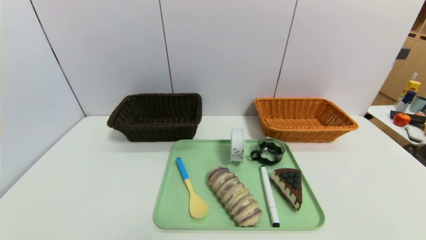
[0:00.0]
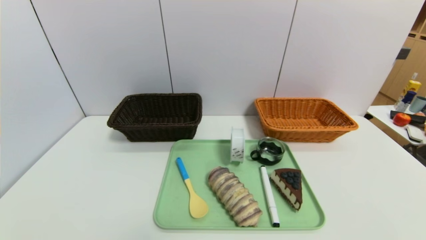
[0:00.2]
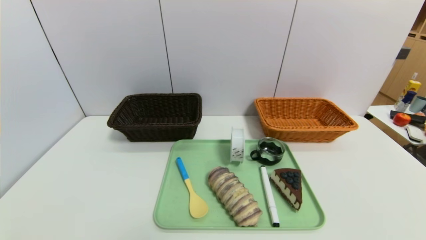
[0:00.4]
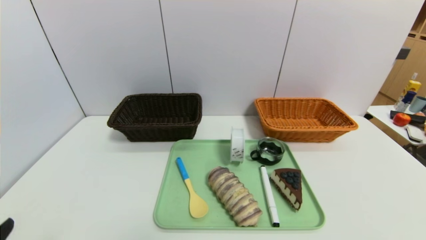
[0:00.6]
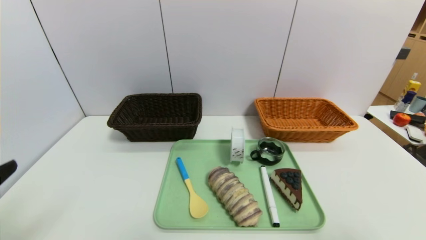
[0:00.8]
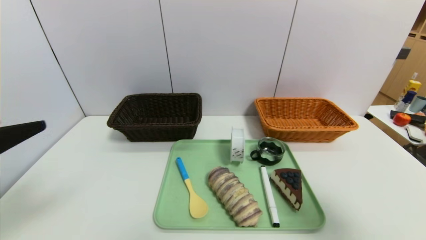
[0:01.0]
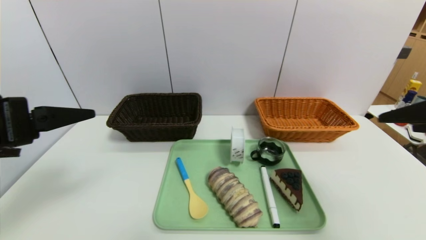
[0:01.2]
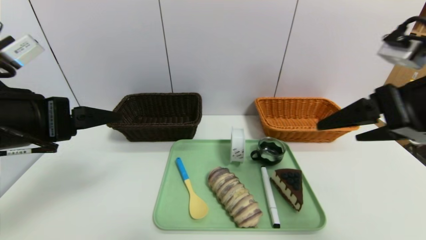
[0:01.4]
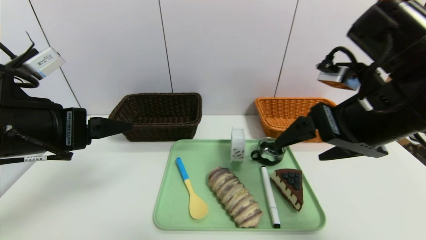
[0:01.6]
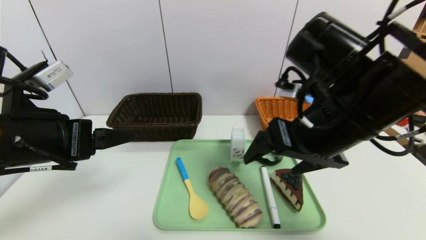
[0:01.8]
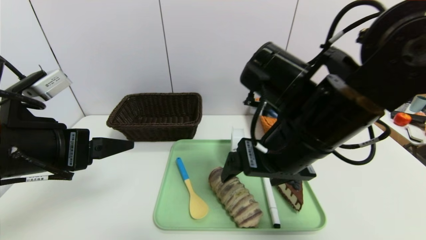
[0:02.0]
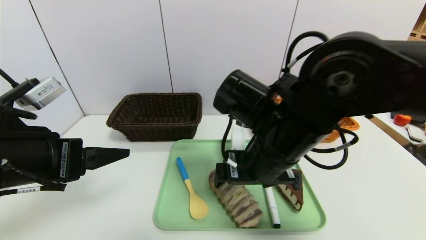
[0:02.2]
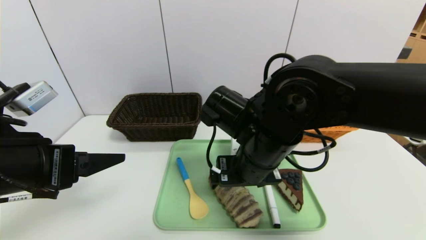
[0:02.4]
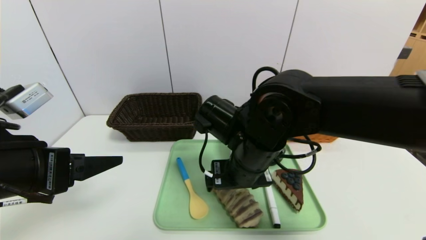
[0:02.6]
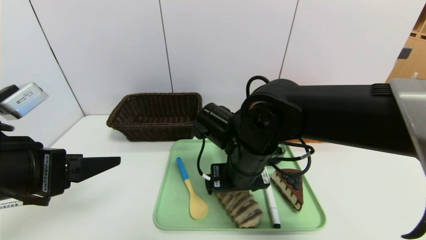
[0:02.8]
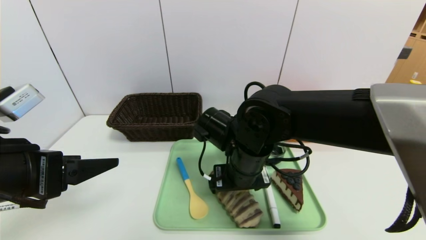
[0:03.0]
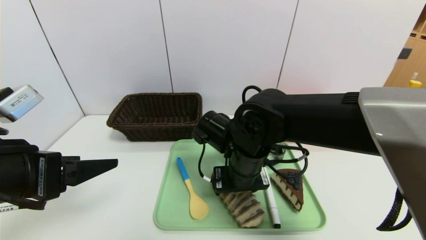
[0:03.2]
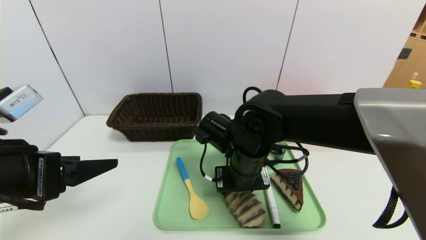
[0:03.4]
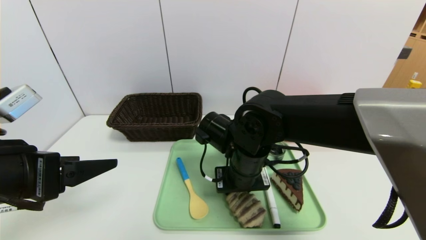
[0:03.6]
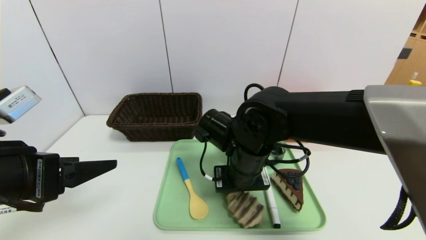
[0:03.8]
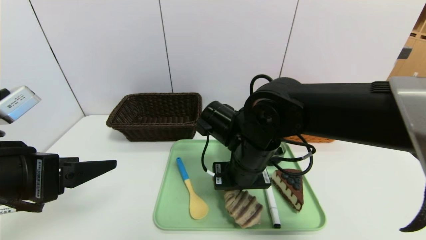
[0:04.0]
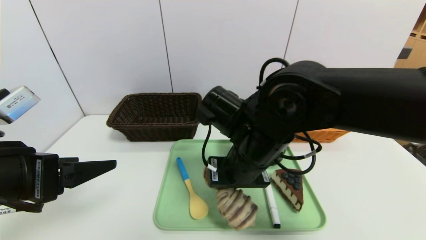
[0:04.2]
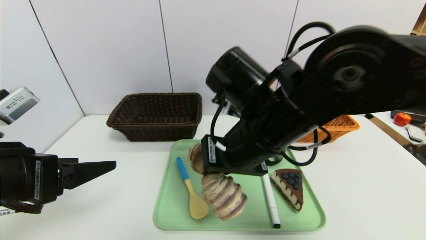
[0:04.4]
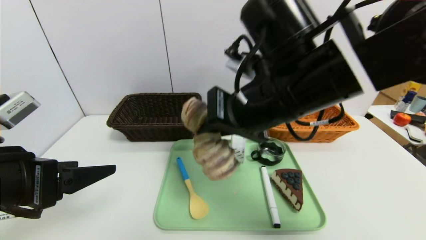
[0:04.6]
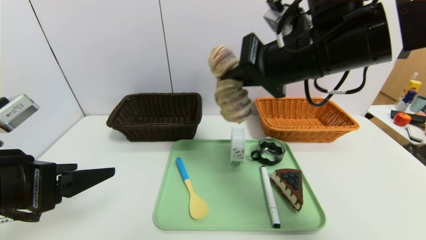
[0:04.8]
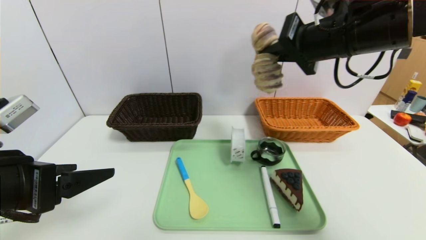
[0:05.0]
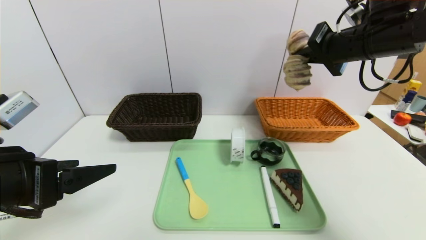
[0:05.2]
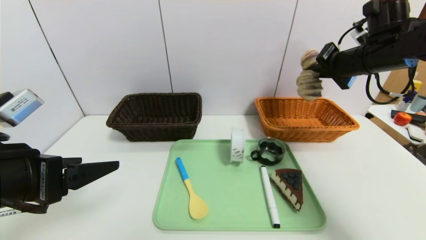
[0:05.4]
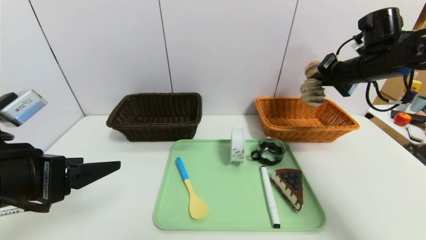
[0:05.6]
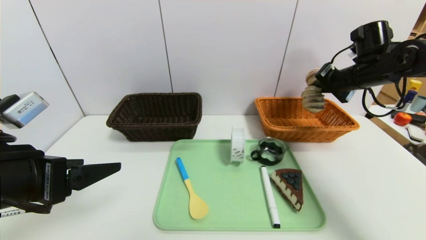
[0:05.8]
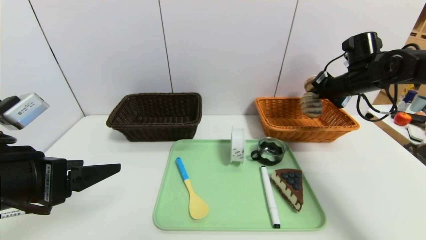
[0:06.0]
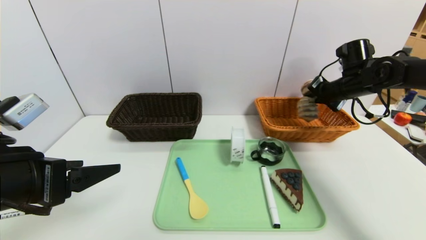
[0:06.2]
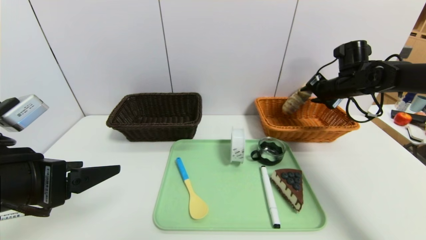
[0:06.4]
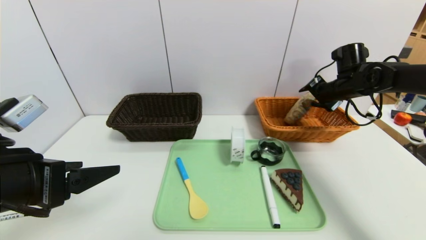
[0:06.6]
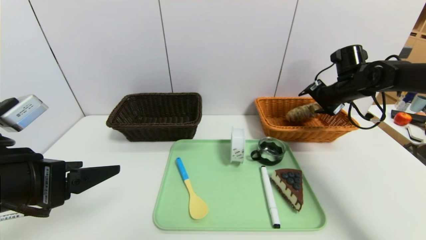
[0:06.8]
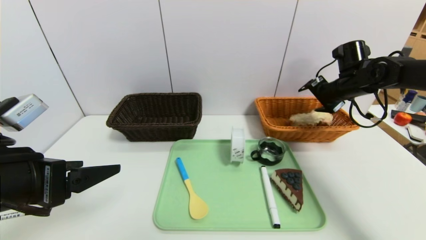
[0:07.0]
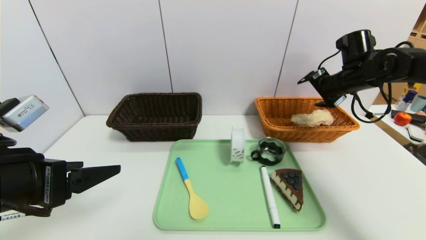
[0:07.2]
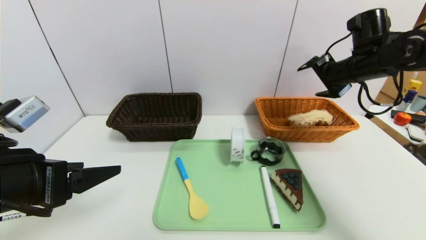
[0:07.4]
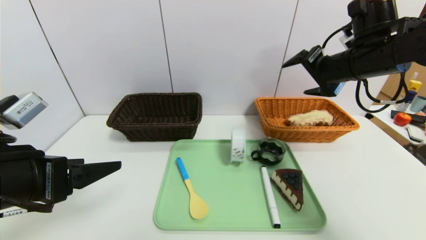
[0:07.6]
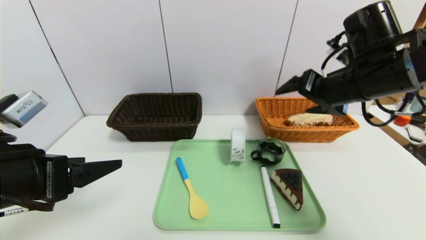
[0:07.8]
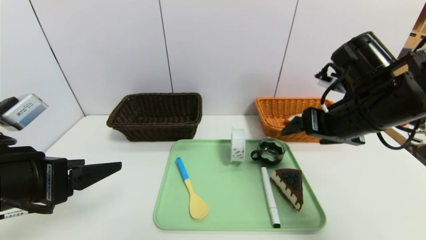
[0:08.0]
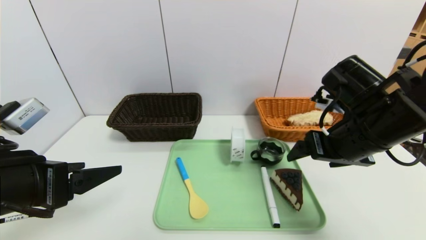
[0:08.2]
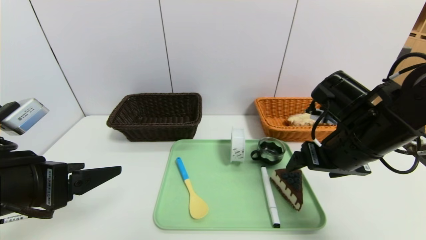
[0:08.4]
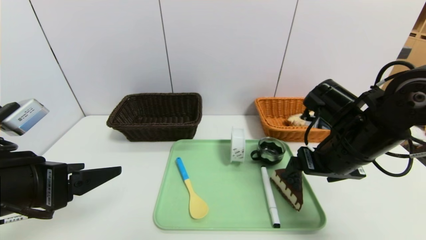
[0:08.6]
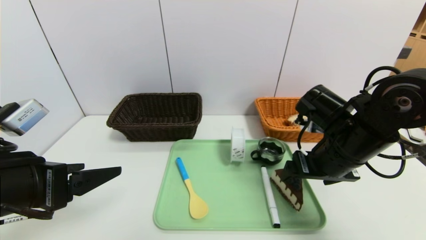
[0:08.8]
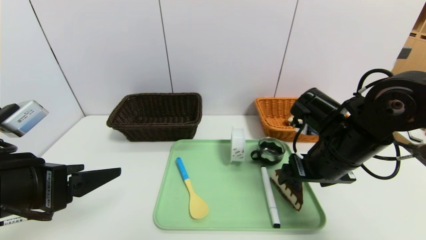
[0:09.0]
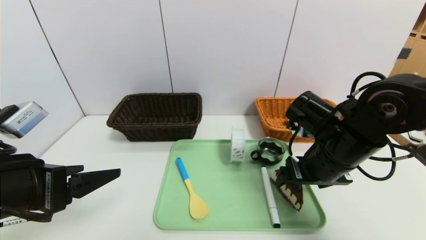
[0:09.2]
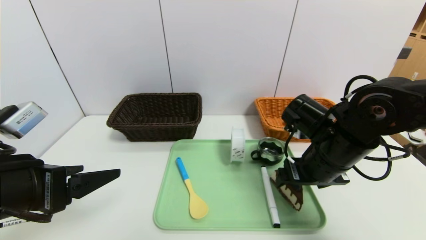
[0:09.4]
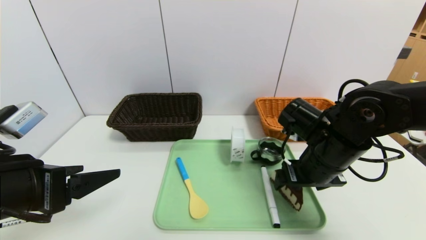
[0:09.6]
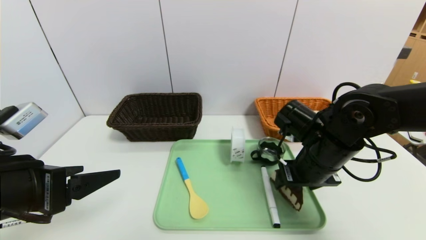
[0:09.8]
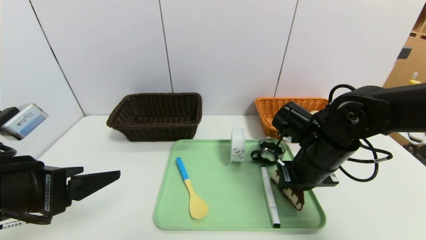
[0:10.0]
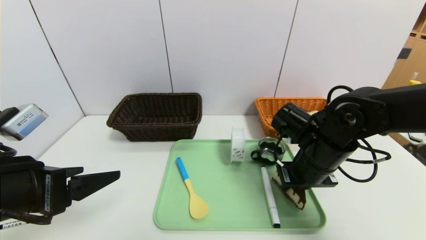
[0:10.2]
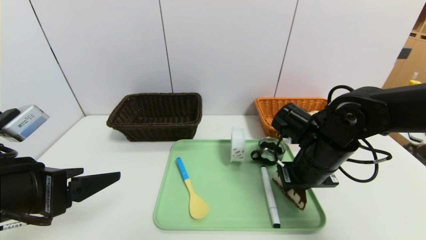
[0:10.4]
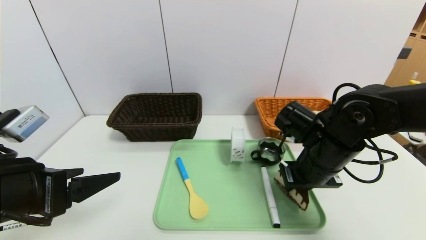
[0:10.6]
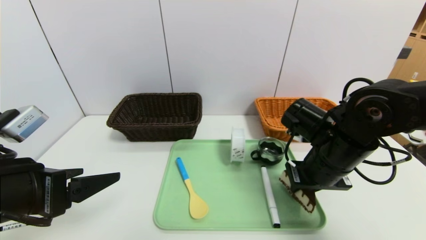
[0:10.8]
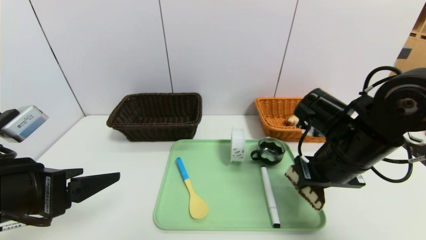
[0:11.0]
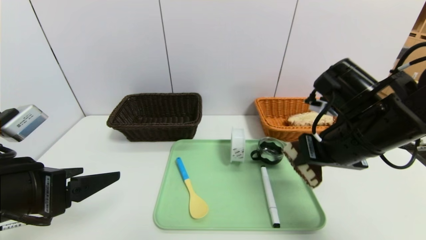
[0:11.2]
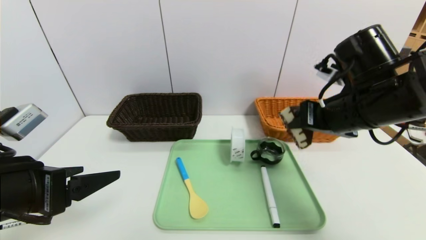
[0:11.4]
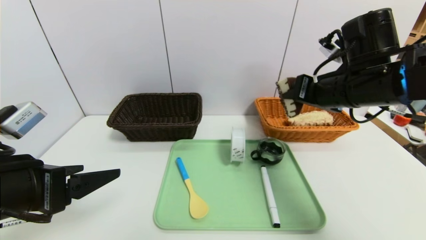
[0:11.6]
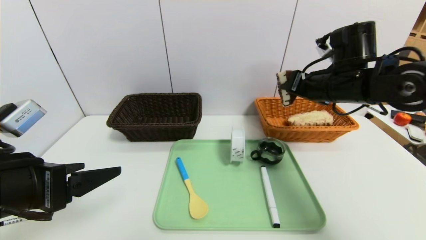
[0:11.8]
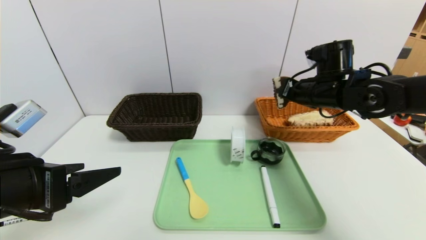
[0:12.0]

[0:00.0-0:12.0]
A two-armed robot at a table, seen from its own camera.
Task of the whole recording: place the food in the right basket with the right gripper, and place the non food items in the left basket with the left gripper.
Step, 0:00.0 to 0:06.8: Grasp the long bread and put it in the right basket.
0:00.0 to 0:01.6: The left gripper moves upward and forward, roughly 30 cm; the right gripper shifts about 35 cm upward, forward and to the left.
0:01.6 to 0:03.0: The left gripper shifts by about 5 cm. Meanwhile the right gripper shifts approximately 20 cm to the left, downward and forward.
0:03.0 to 0:04.4: The right gripper is displaced upward by approximately 10 cm, and closes.
0:04.4 to 0:06.0: The right gripper heads to the right and forward, covering roughly 35 cm.
0:06.0 to 0:07.6: The right gripper moves backward, to the left and upward, roughly 15 cm, and opens up.
0:07.6 to 0:09.0: The right gripper goes some 15 cm downward and backward.
0:09.0 to 0:10.4: The right gripper closes.
0:10.4 to 0:12.0: The right gripper heads forward and upward, covering about 15 cm.

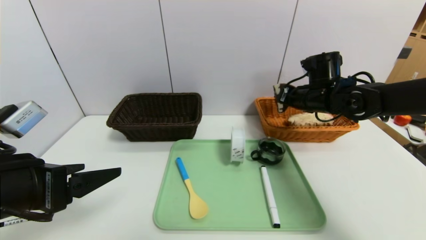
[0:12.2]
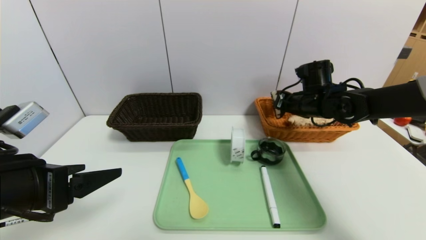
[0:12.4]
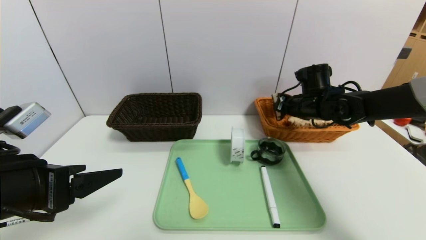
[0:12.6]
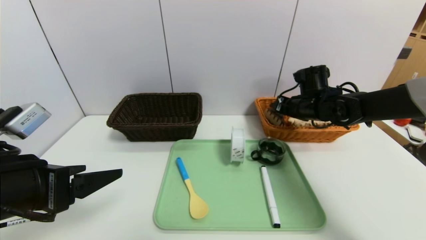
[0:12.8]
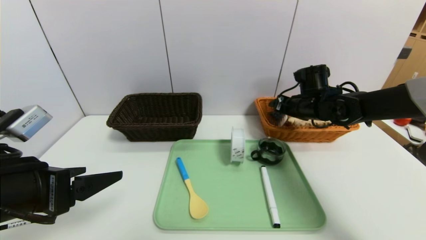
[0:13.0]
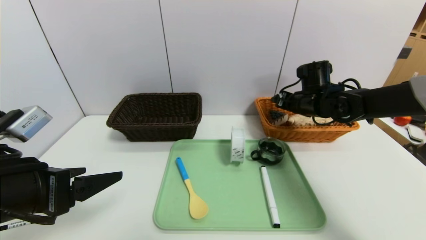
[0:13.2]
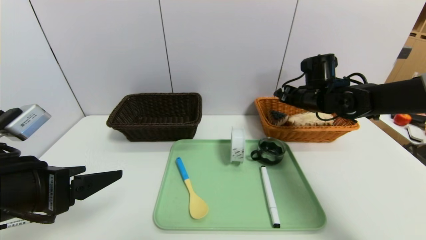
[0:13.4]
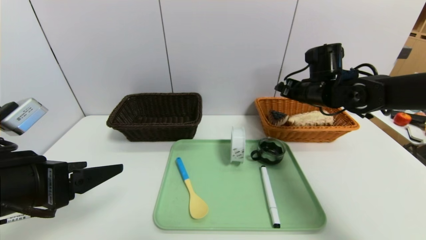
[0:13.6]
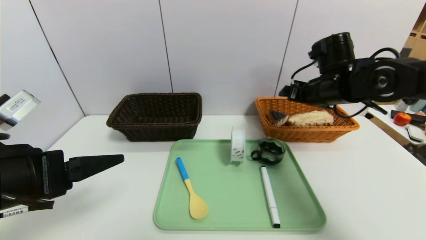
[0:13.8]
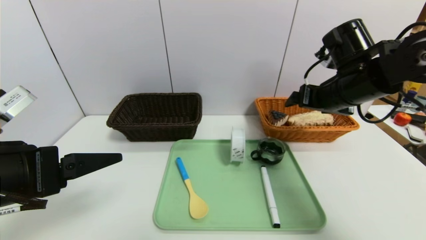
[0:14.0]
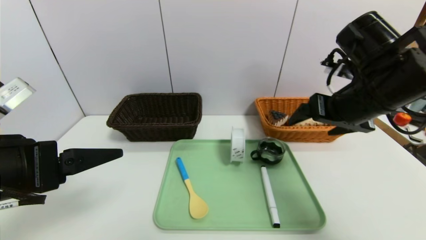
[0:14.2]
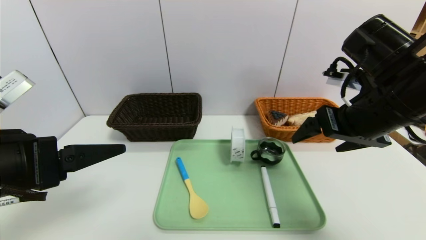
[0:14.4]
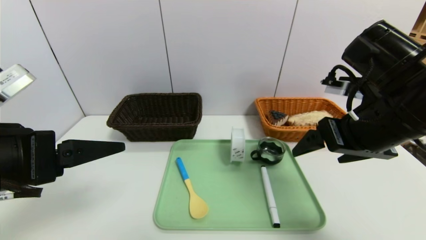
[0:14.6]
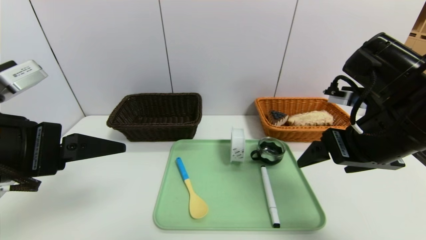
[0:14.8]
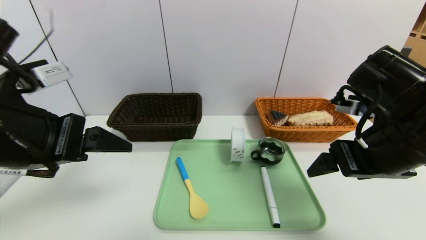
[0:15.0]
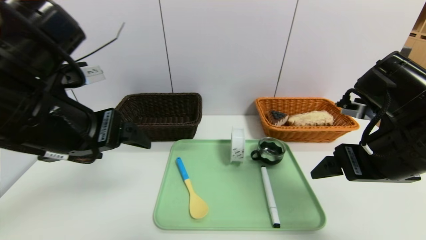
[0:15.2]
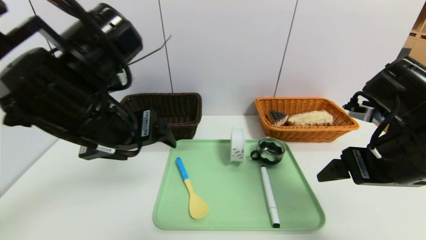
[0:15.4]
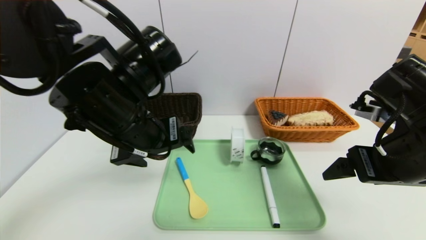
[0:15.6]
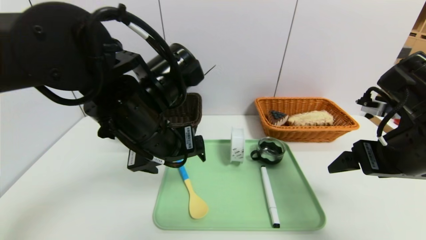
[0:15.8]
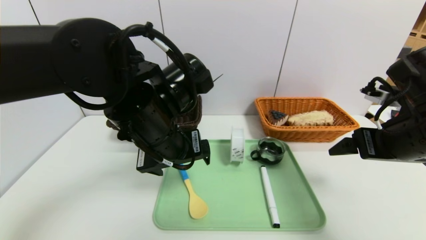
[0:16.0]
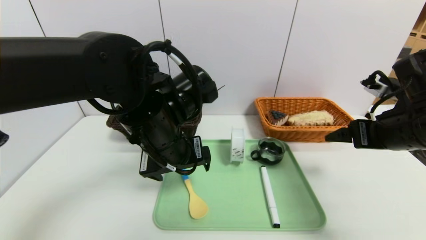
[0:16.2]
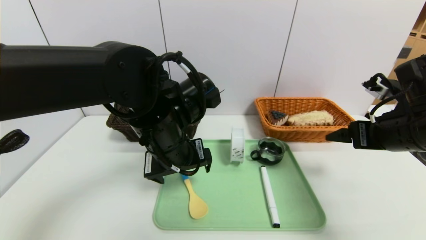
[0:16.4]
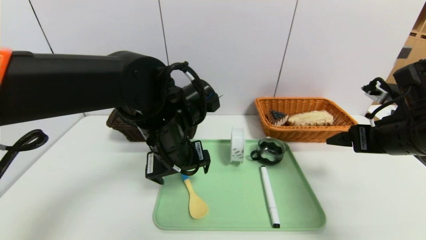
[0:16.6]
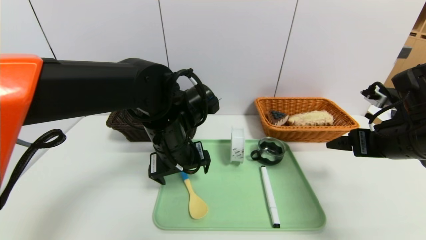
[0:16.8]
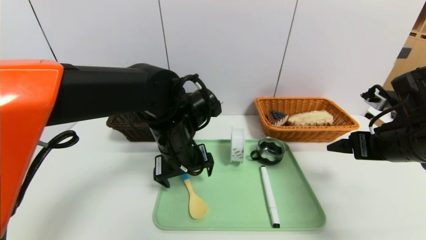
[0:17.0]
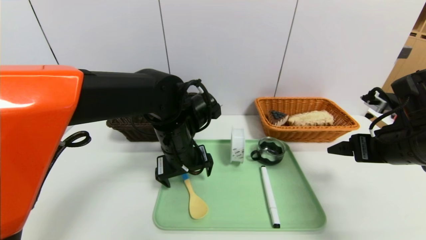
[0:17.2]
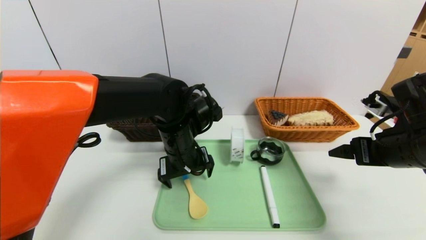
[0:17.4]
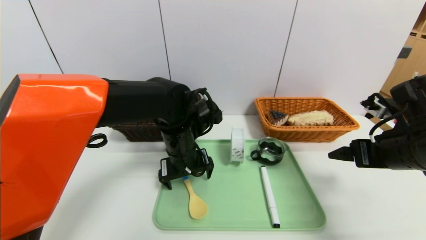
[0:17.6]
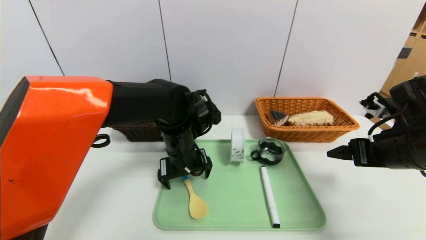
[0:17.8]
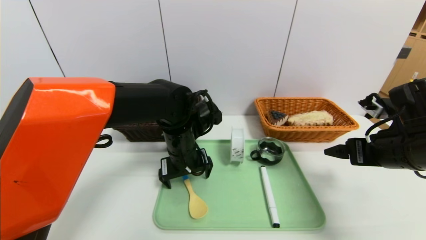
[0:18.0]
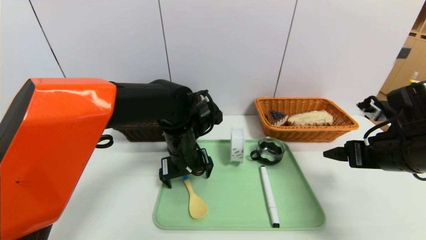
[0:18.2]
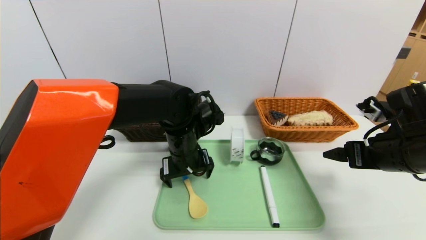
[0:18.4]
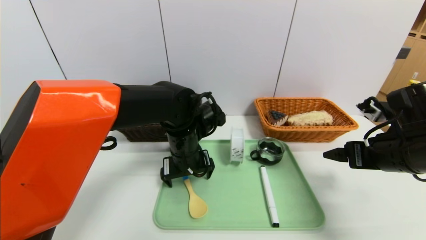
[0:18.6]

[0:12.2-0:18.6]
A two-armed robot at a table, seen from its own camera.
Task of the whole recording: place the food in the right basket with the right gripper, and place the non food items in the left basket with the left gripper.
0:12.2 to 0:13.8: The right gripper shifts by about 5 cm, and opens up.
0:13.8 to 0:15.4: The right gripper is displaced backward by some 15 cm. Meanwhile the left gripper moves to the right and forward, approximately 15 cm.
0:15.4 to 0:17.0: The left gripper heads downward, to the right and forward, covering some 15 cm; the right gripper travels to the right by roughly 5 cm.
0:17.0 to 0:18.6: The left gripper shifts by some 5 cm.
